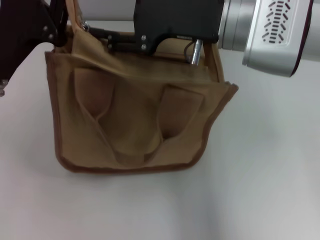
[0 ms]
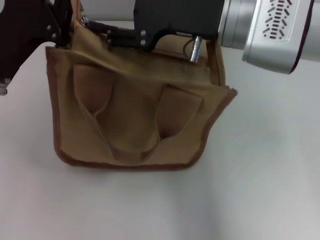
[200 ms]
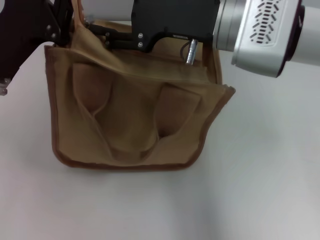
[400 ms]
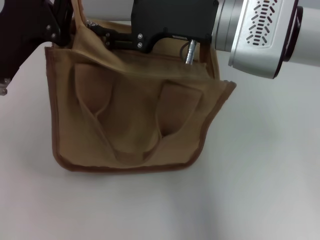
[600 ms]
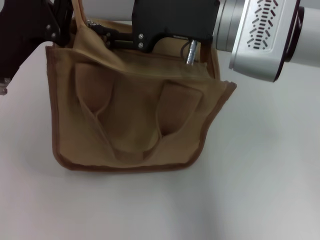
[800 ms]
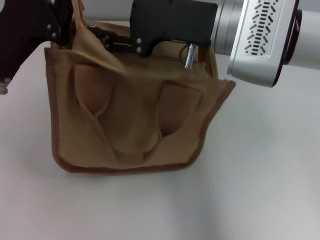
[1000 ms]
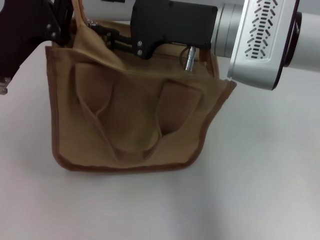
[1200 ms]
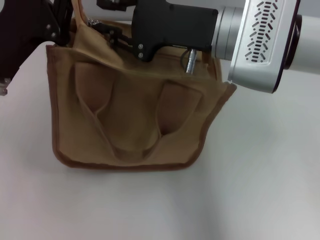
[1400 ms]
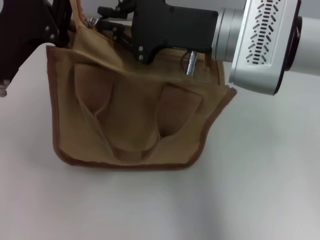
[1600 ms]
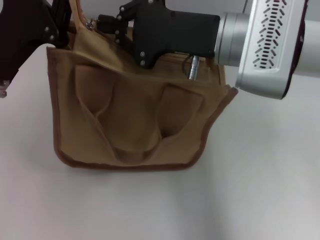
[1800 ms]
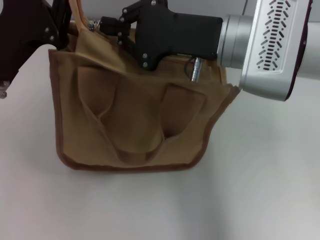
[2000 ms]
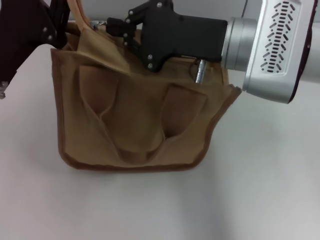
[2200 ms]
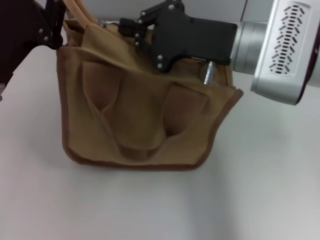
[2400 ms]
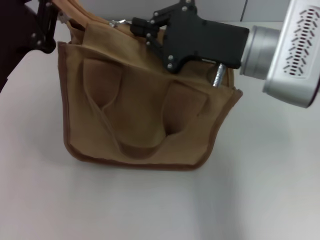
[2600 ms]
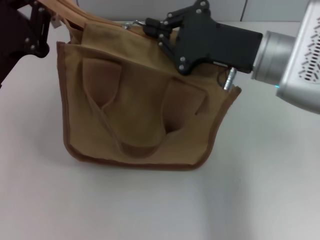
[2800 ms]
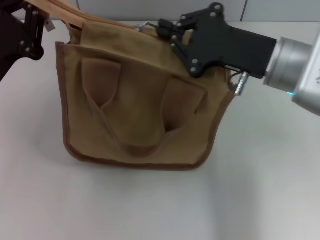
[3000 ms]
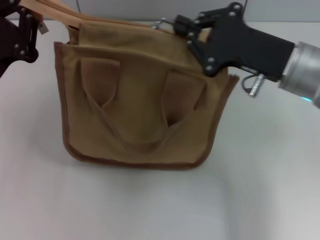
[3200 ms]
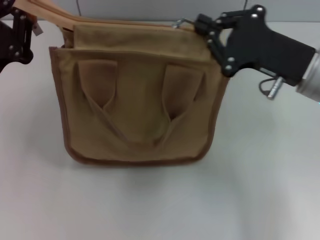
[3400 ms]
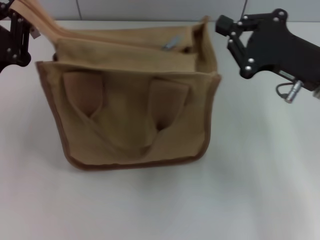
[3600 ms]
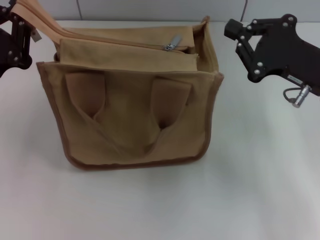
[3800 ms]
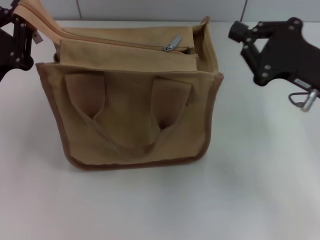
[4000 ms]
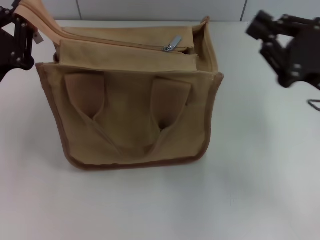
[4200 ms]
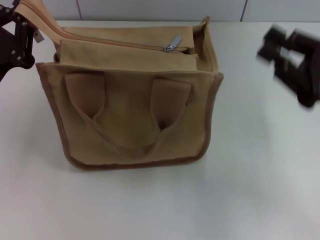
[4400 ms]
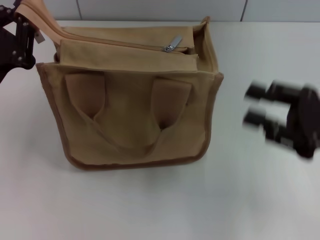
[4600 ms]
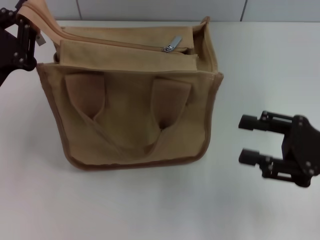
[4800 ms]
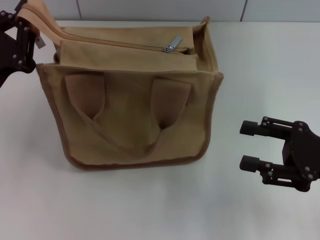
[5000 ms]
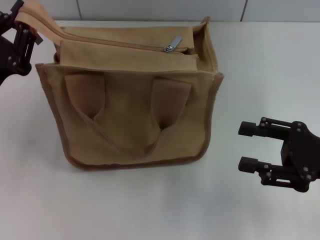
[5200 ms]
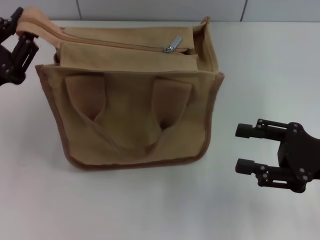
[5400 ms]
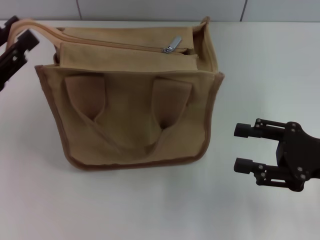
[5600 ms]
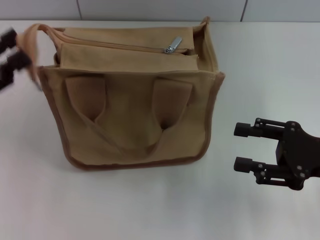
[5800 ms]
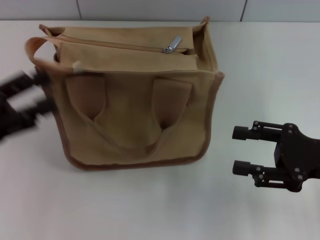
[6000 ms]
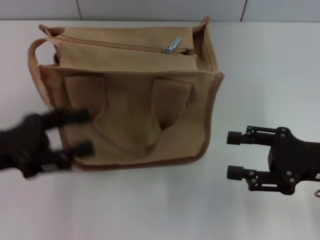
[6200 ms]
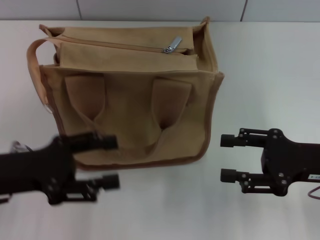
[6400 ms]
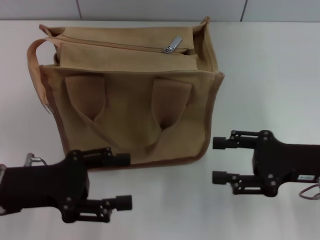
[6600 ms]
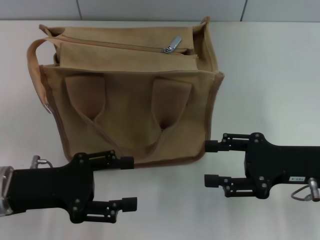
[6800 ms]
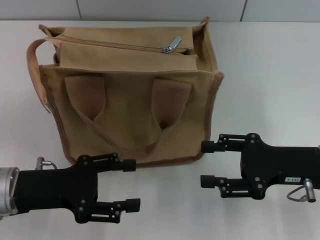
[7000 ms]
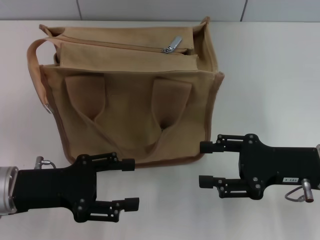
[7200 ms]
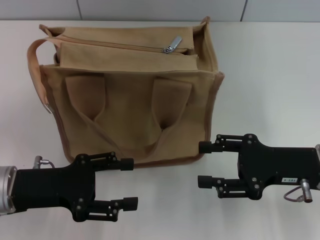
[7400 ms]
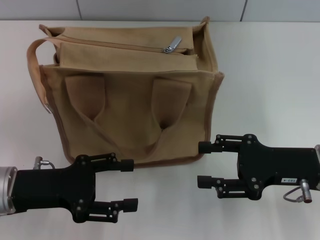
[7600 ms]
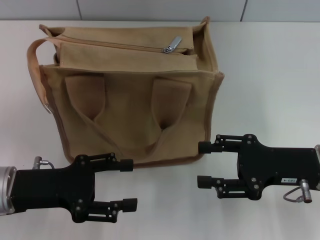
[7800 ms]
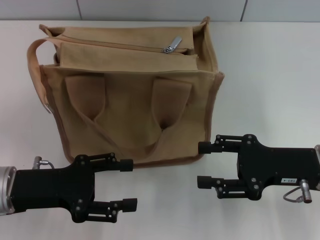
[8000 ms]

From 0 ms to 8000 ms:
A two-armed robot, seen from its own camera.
Step, from 0 ms to 3400 ms: Pull up the zipper with your right hand.
Step, from 3800 ms to 6000 ms: Grab the zipper with your left hand.
From 0 ms to 1600 ms: The right gripper closes.
From 1600 ms to 3200 ms: The right gripper travels to the right by about 10 cm, and closes.
From 3200 ms to 4800 ms: The right gripper is displaced to the right, backward and downward by some 15 cm, and opens its fingers.
From 4800 ms to 6400 ms: The left gripper opens.
From 6400 ms to 8000 ms: The grippers stay close to where they were, moving slightly.
